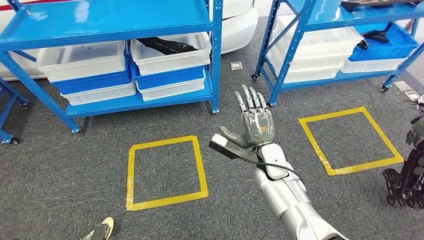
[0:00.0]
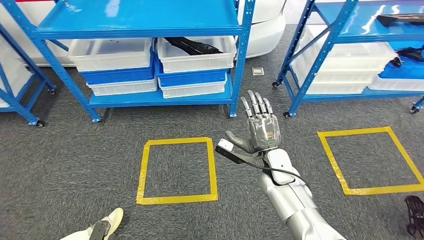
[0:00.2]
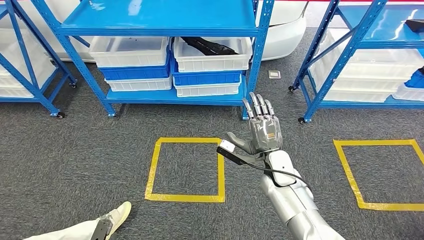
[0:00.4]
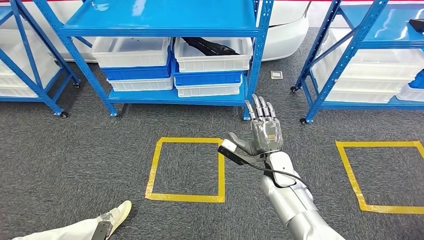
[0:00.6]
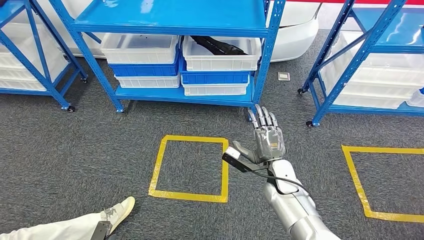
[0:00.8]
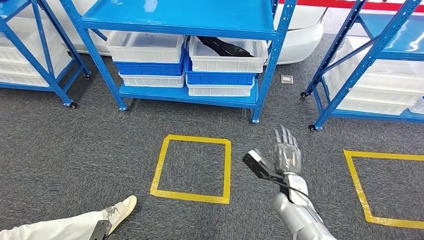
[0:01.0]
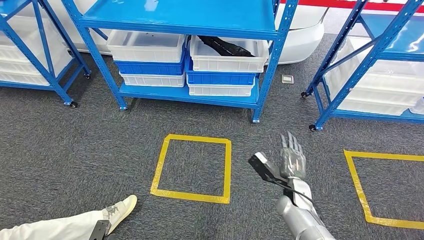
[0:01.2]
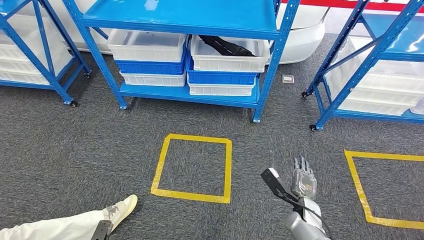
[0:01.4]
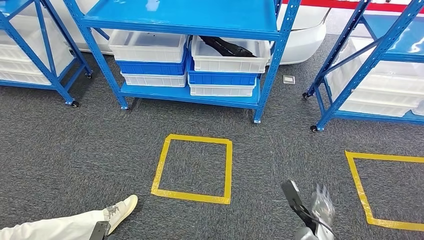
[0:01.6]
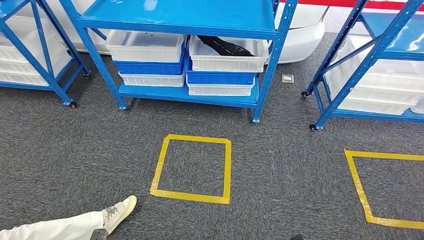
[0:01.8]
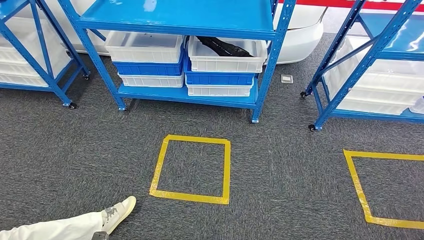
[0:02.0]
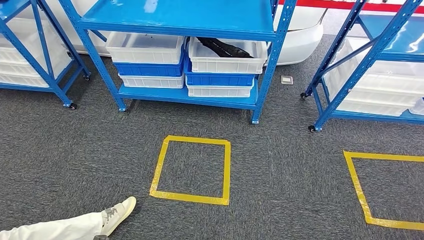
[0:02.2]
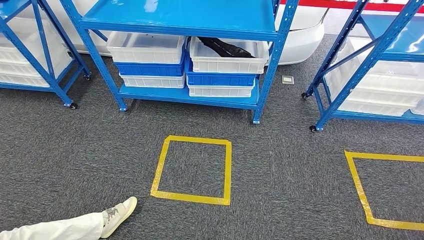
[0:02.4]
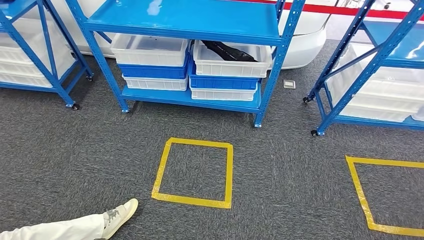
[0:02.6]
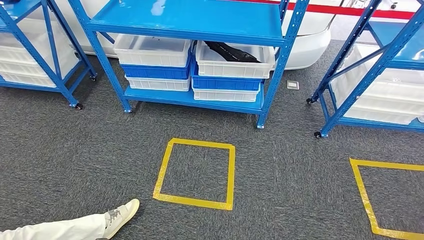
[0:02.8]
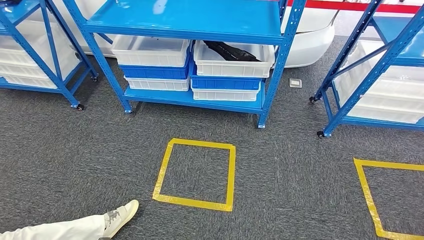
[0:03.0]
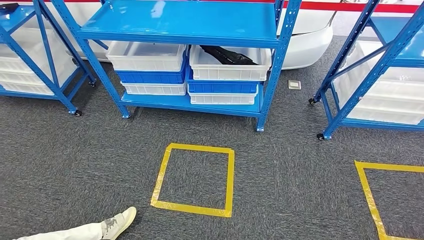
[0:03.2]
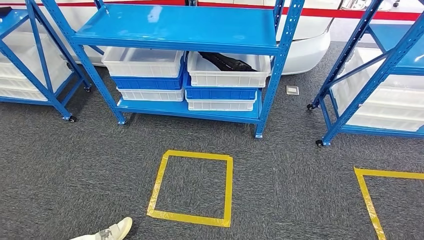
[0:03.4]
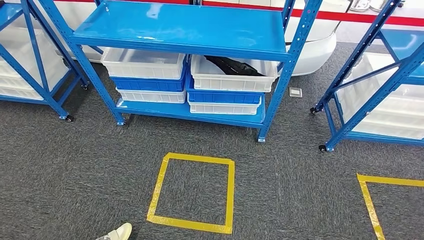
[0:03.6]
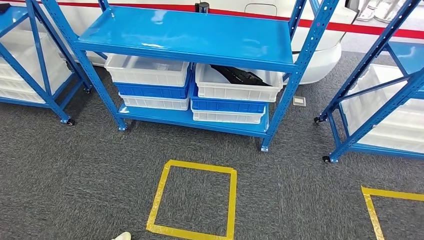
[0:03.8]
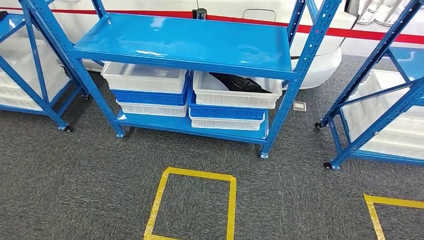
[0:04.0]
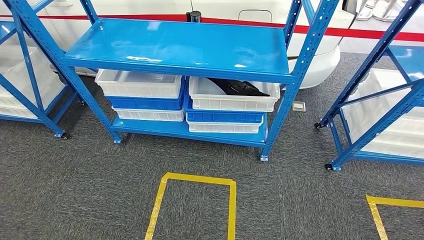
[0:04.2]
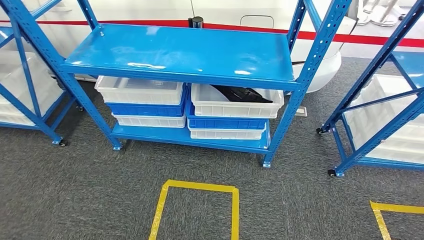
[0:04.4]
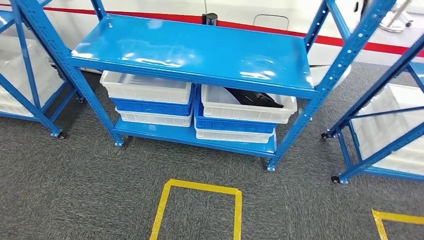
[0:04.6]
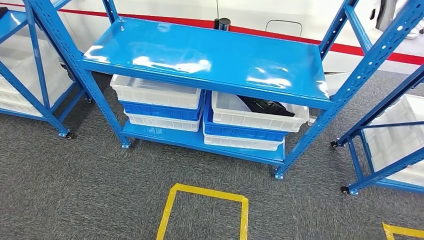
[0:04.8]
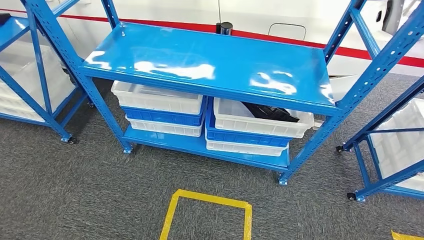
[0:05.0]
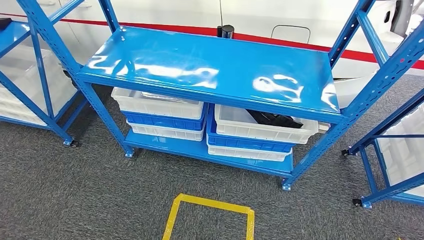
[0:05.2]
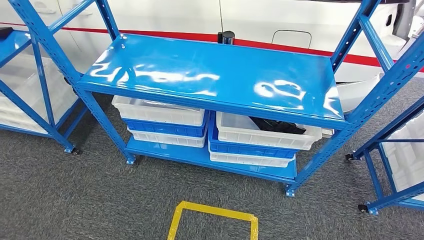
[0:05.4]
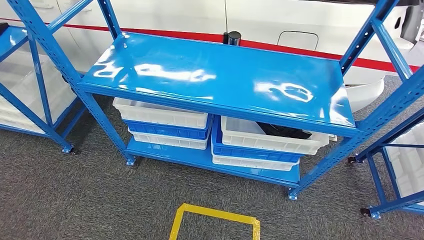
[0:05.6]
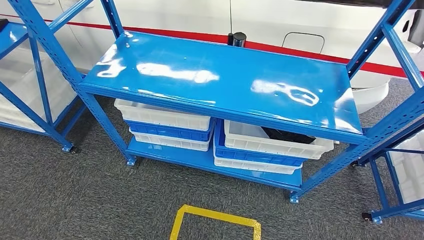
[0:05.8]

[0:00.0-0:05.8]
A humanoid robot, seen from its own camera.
Step, 0:00.0 to 0:05.8: Move to the initial position of the shelf.
